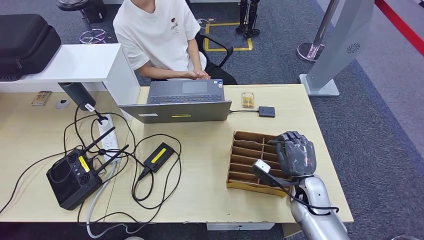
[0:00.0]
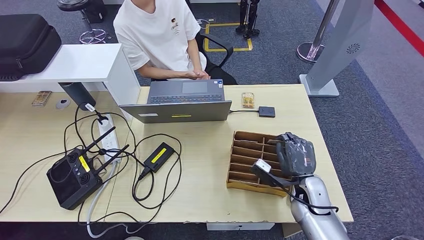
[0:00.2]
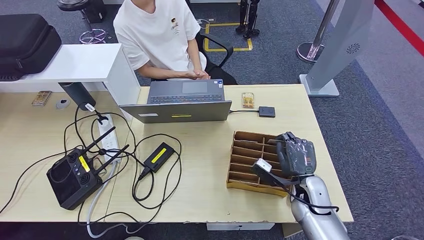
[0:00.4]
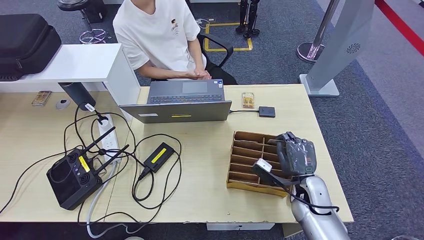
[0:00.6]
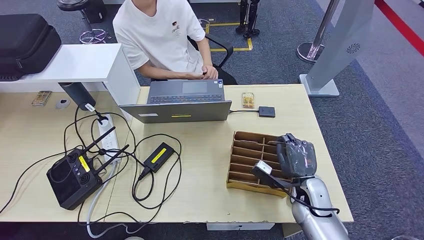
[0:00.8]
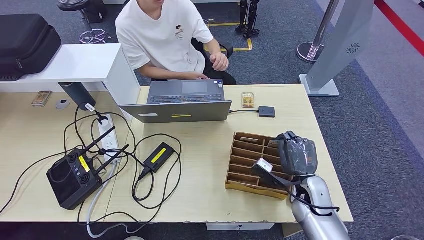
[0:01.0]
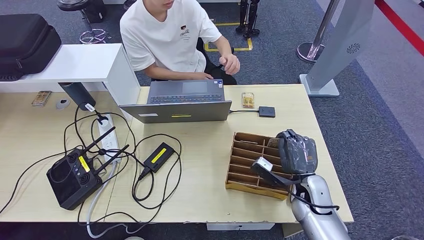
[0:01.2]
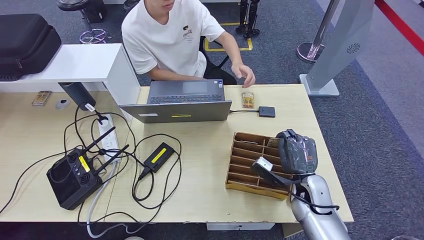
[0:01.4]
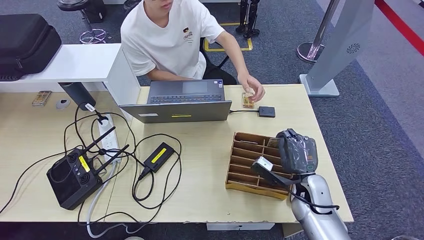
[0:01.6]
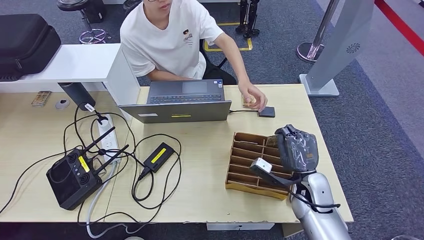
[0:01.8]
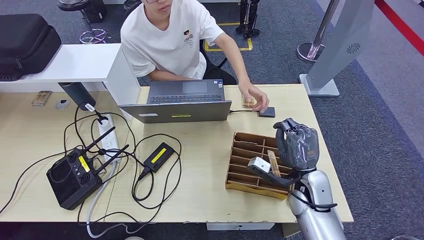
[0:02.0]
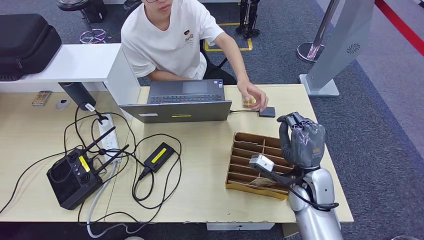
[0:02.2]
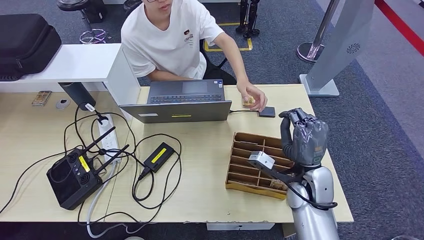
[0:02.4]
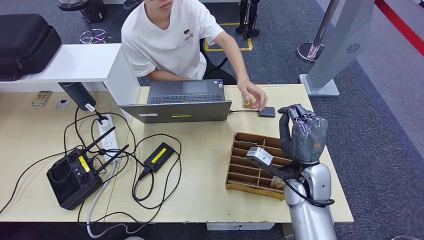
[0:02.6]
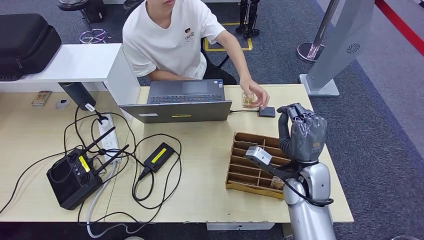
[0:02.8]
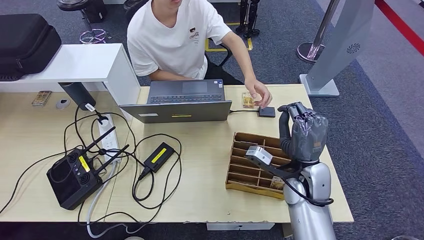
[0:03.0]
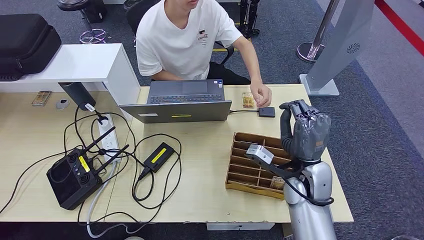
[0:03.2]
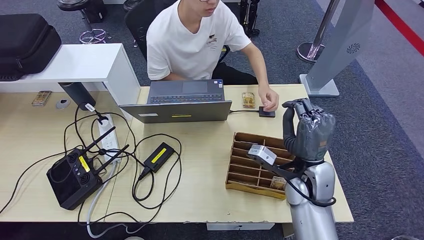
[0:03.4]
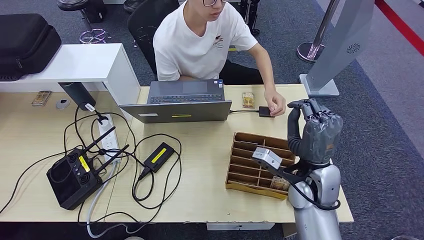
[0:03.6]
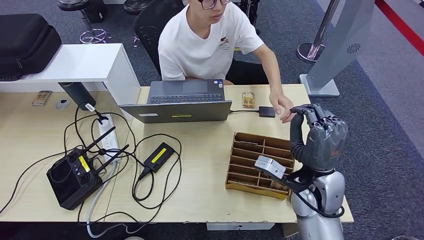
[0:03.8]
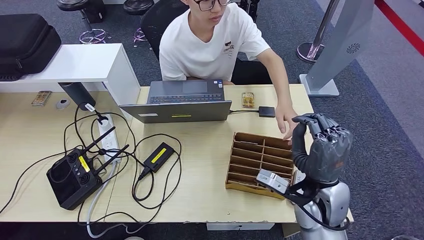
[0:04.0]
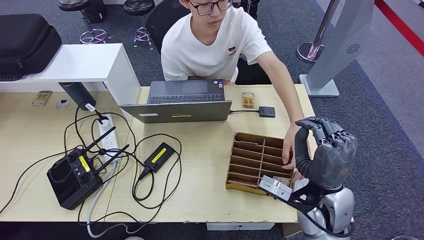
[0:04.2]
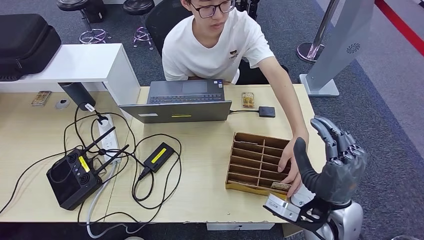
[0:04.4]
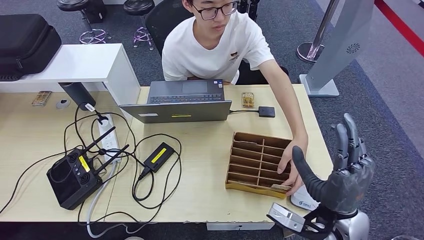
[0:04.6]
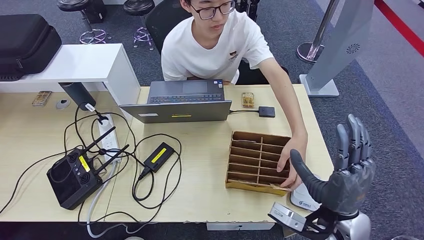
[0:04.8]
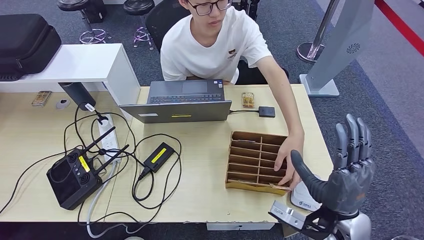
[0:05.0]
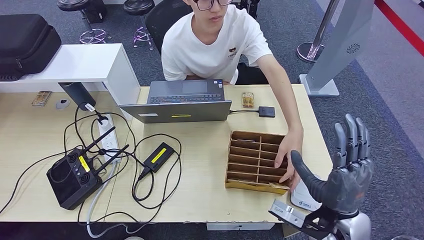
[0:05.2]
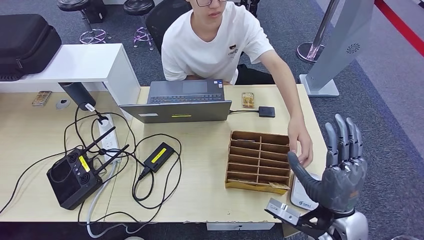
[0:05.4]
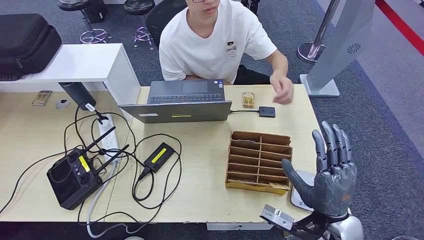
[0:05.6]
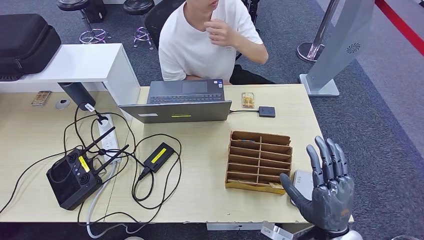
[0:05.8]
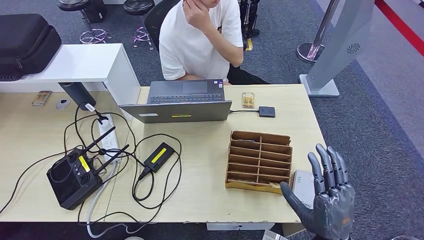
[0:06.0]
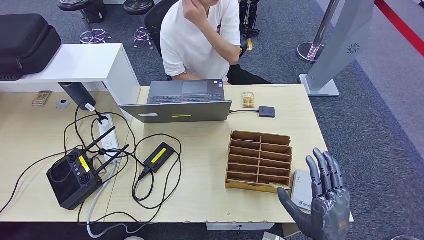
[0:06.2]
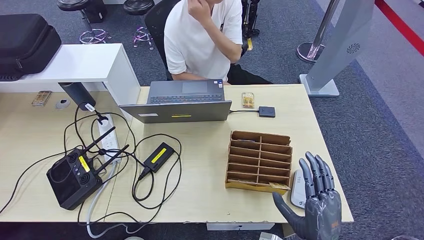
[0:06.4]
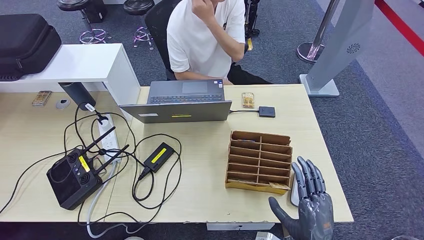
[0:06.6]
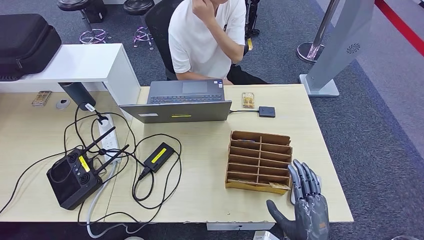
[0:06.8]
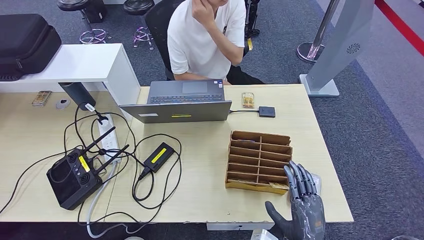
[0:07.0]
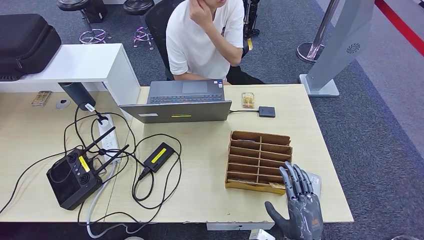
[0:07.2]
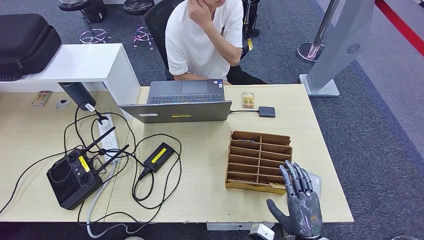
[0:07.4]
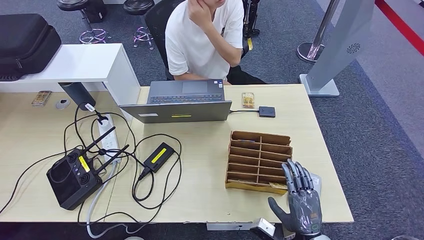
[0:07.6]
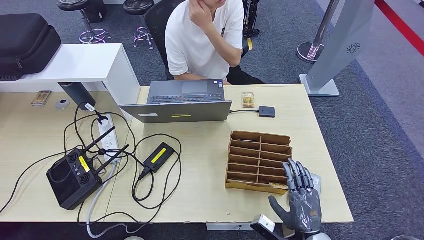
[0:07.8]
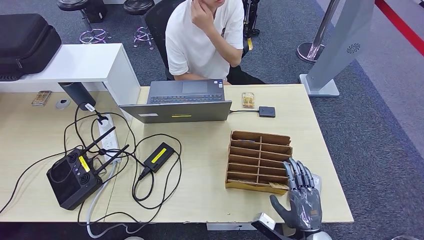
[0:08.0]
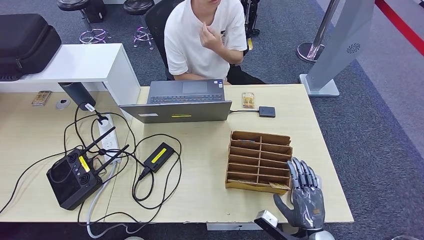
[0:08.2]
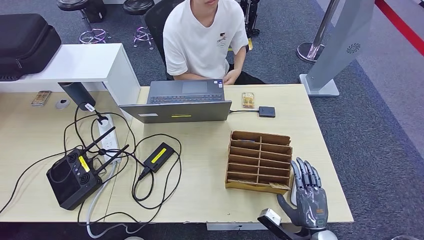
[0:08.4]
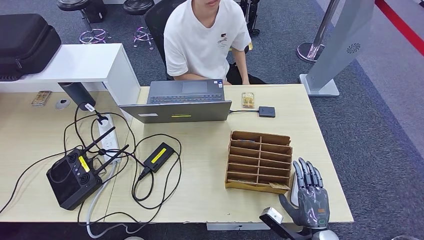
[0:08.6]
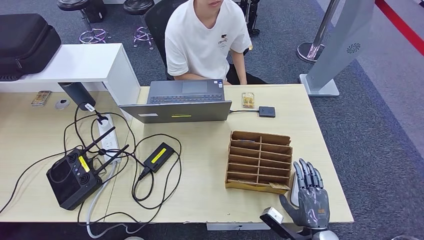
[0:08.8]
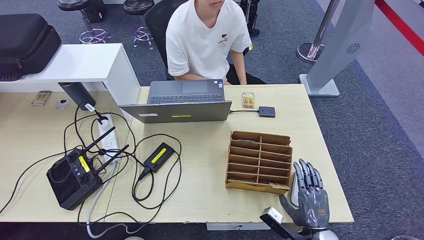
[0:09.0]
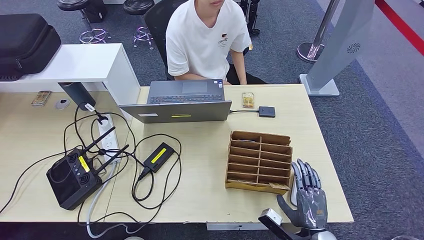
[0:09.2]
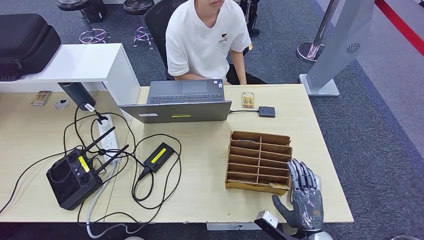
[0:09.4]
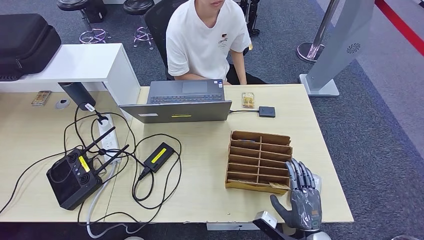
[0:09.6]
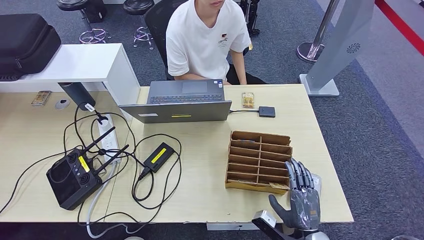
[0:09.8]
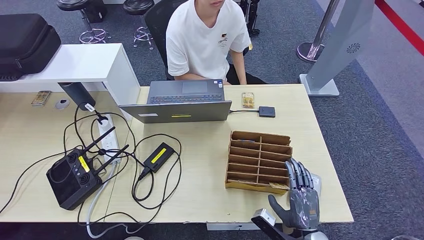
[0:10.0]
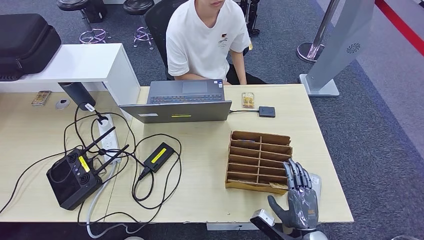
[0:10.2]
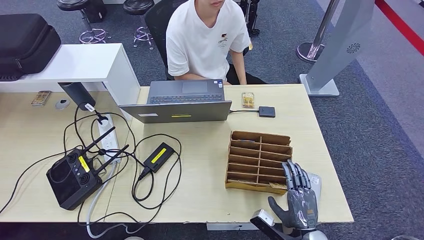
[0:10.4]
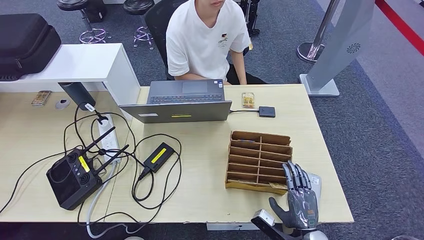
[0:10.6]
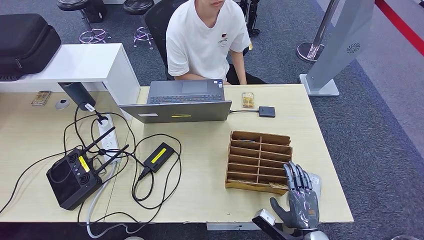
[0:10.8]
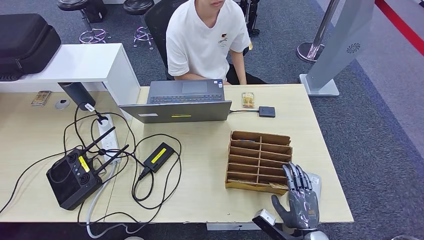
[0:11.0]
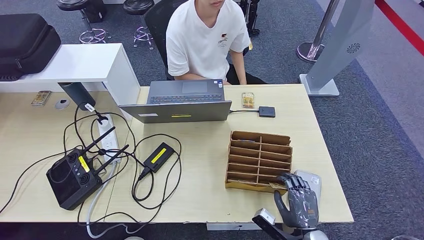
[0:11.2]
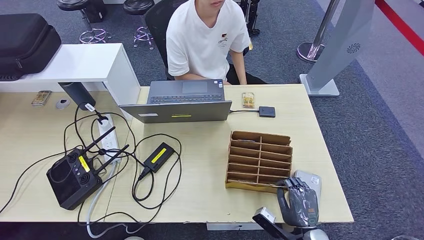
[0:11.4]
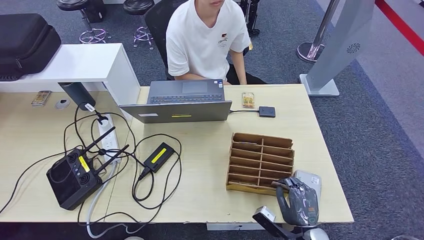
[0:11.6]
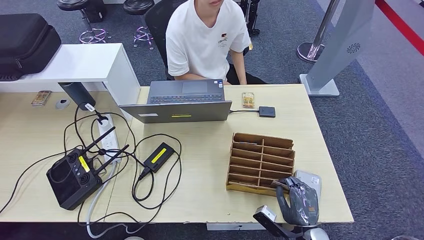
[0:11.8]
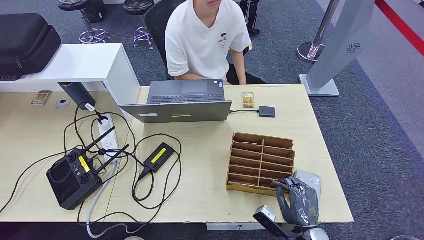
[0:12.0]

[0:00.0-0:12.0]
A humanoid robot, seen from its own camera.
Step, 0:00.0 to 0:03.0: Pick up the room key from the key card box.
0:00.0 to 0:01.6: Both hands stay about where they are.
0:01.6 to 0:03.0: The right hand goes about 10 cm upward.
0:03.0 to 0:04.4: The right hand travels backward by approximately 10 cm.
0:04.4 to 0:06.0: The right hand moves backward, some 10 cm.
0:06.0 to 0:07.6: The right hand shifts some 10 cm downward.
0:07.6 to 0:10.4: The hands make only small movements.
0:10.4 to 0:12.0: Neither hand changes place.

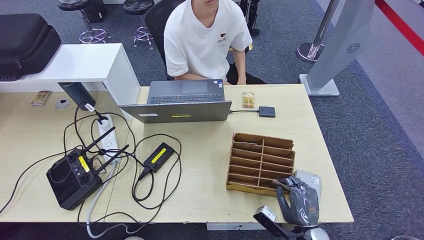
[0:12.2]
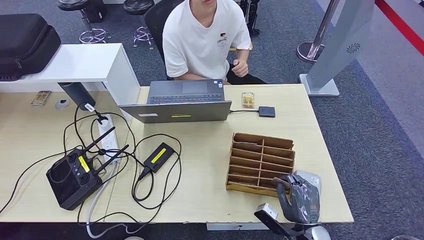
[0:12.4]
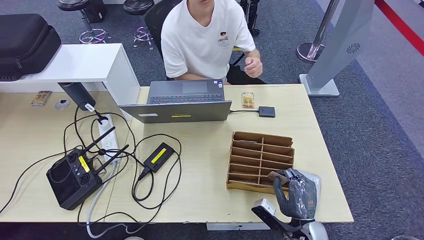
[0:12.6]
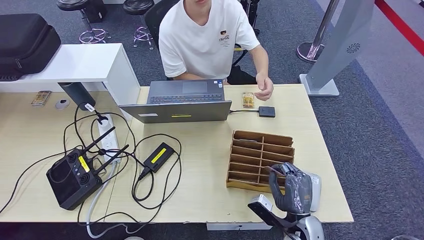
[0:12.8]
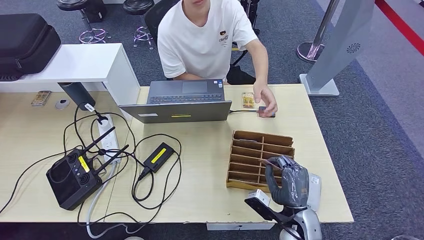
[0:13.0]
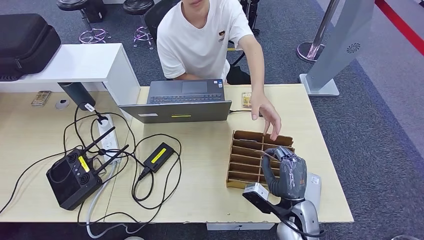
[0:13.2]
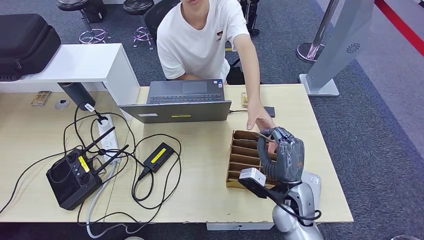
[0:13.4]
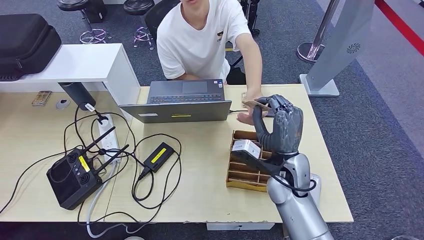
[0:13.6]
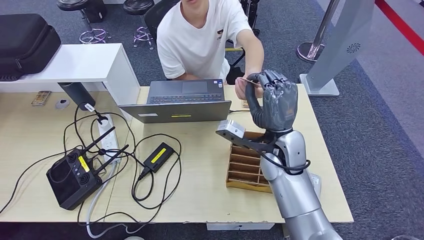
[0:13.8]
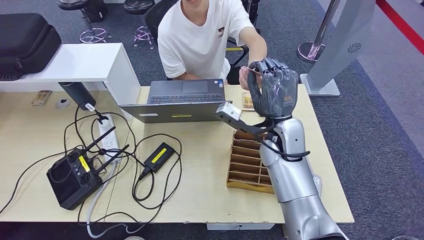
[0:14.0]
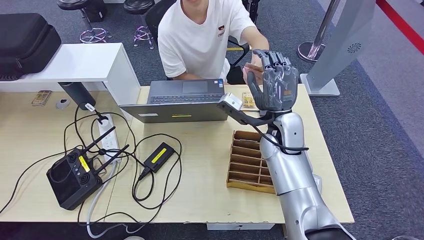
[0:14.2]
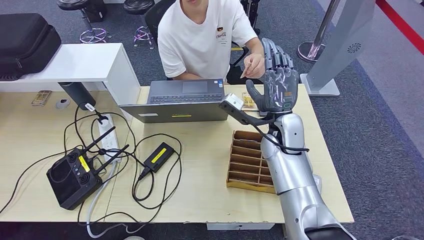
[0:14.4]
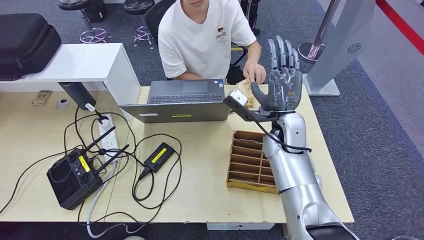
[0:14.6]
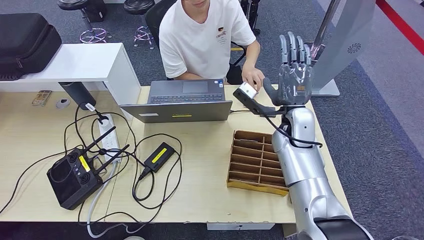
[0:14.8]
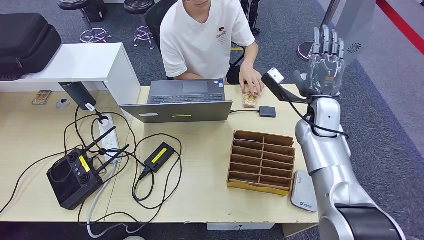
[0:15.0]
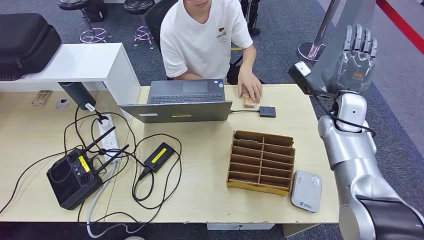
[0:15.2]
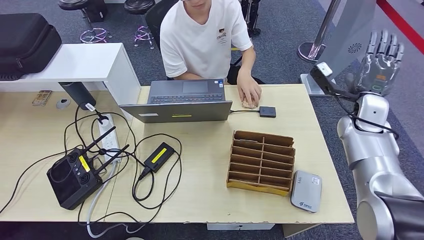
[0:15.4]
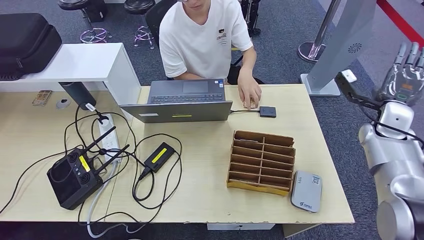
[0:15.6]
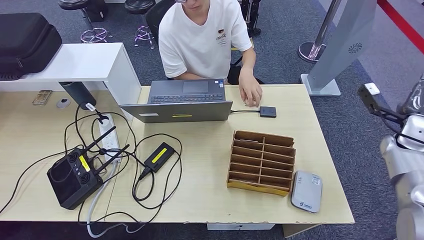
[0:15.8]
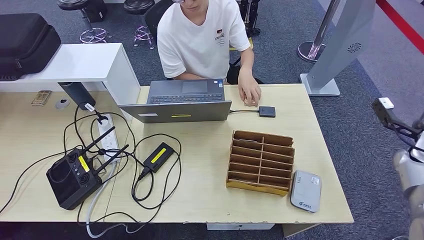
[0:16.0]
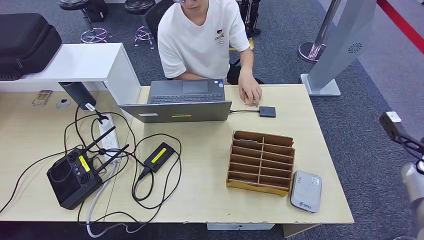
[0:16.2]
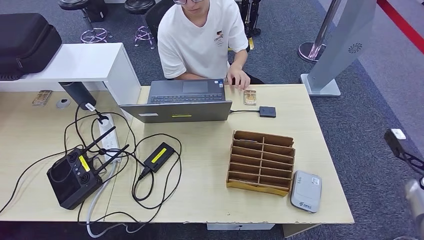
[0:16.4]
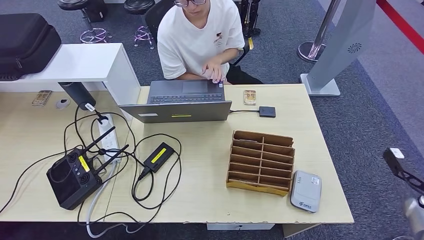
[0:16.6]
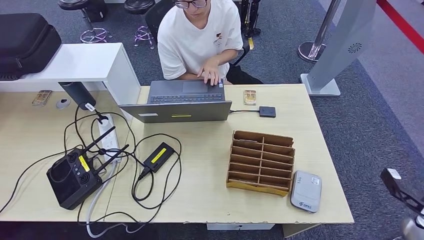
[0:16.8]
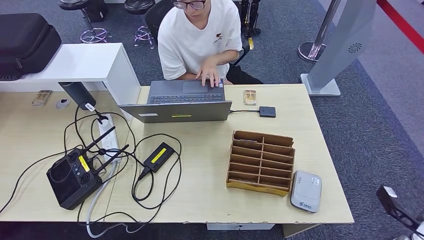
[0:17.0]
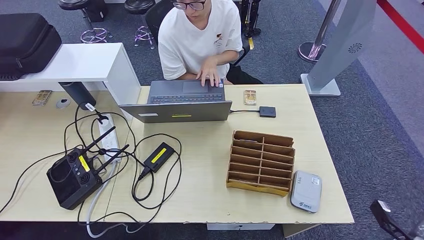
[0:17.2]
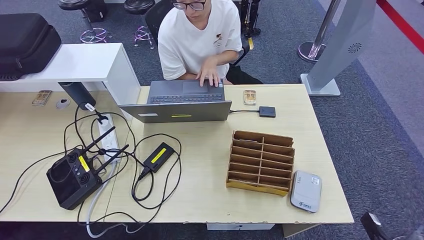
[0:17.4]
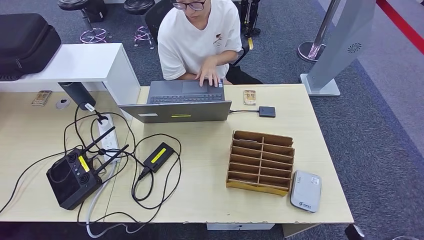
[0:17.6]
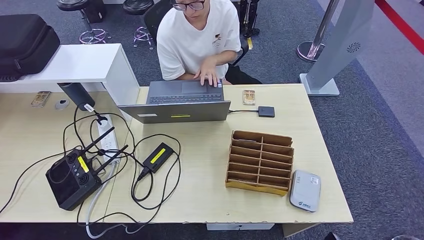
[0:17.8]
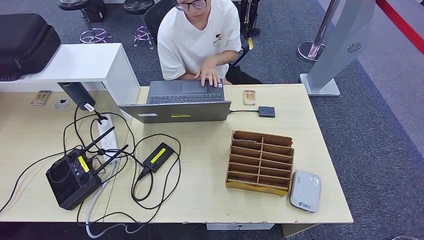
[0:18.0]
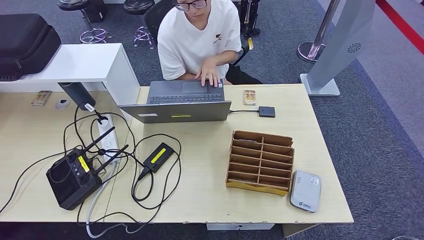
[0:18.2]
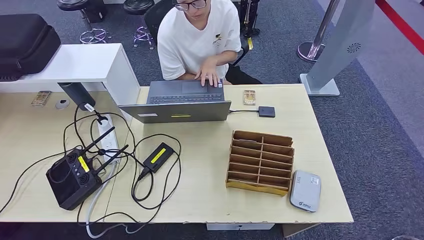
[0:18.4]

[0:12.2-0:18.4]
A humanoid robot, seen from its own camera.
Step, 0:12.2 to 0:18.2: Hand the room key to the person.
0:12.2 to 0:13.8: The right hand is displaced upward, forward and to the left by about 30 cm.
0:15.4 to 0:16.8: The right hand heads backward, to the right and downward, covering some 35 cm.
0:16.8 to 0:18.4: The right hand heads to the left, backward and downward, covering roughly 35 cm.
